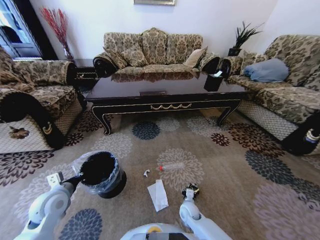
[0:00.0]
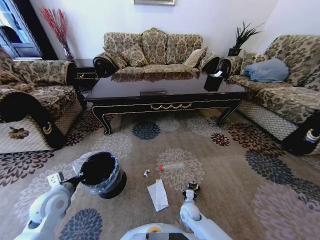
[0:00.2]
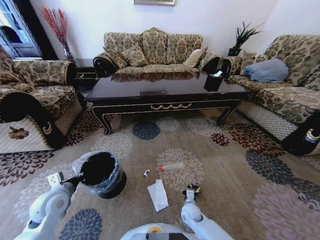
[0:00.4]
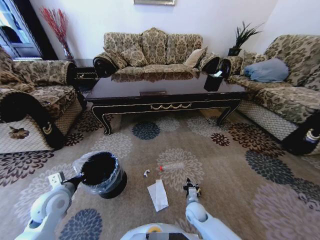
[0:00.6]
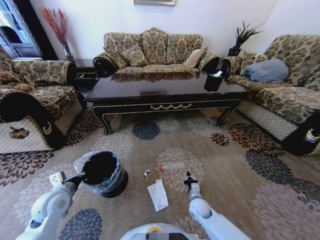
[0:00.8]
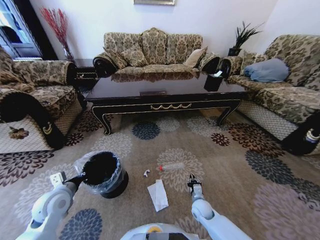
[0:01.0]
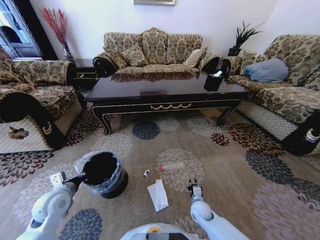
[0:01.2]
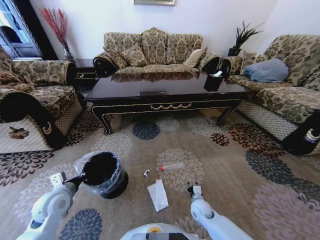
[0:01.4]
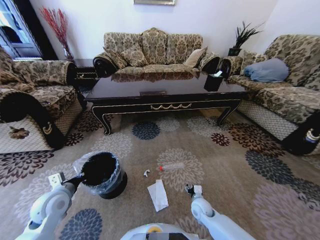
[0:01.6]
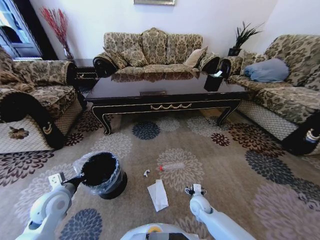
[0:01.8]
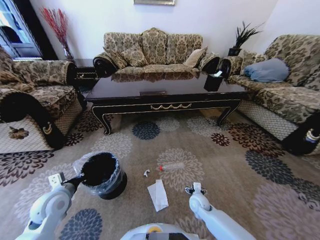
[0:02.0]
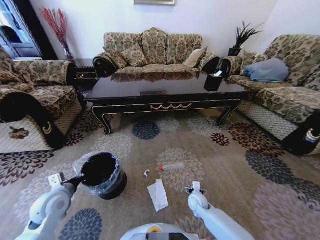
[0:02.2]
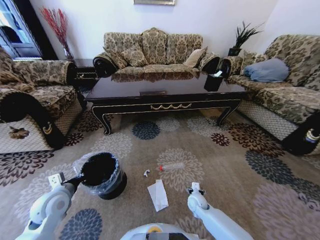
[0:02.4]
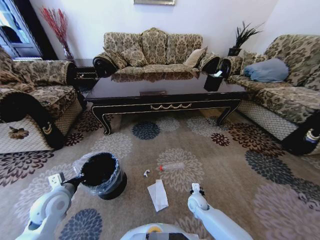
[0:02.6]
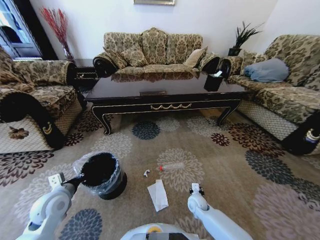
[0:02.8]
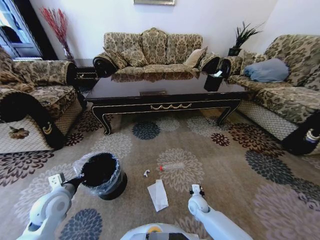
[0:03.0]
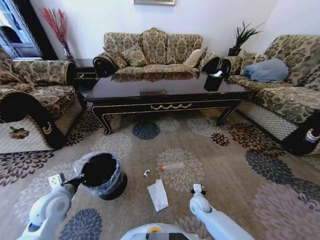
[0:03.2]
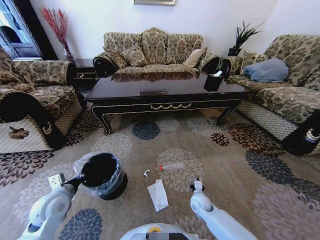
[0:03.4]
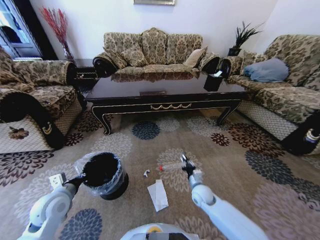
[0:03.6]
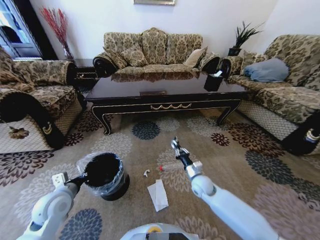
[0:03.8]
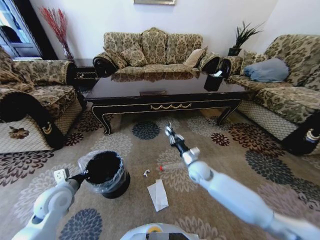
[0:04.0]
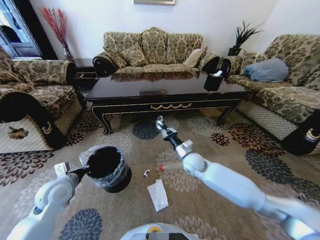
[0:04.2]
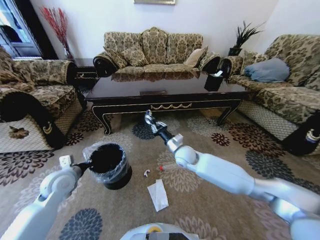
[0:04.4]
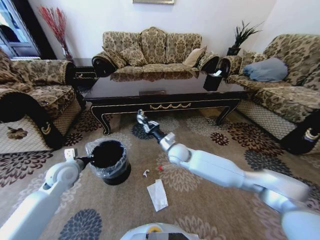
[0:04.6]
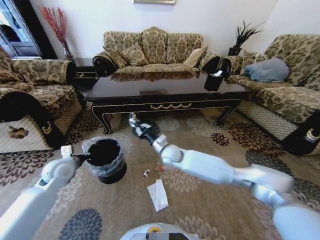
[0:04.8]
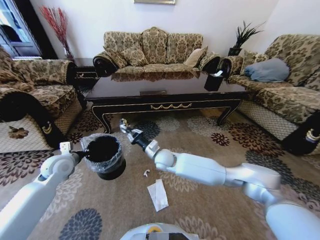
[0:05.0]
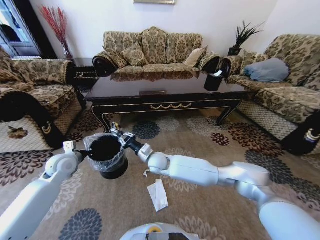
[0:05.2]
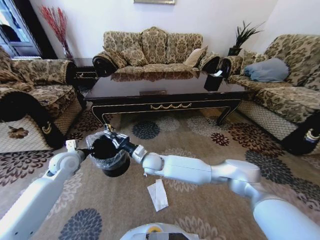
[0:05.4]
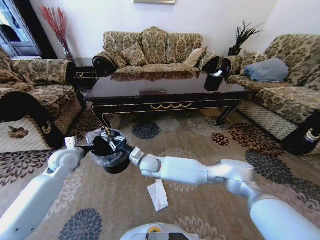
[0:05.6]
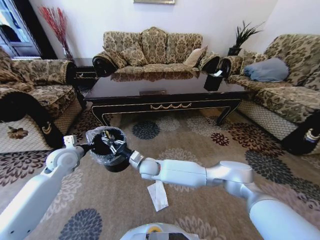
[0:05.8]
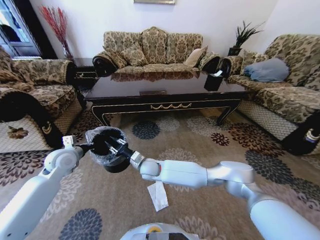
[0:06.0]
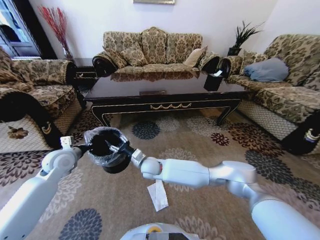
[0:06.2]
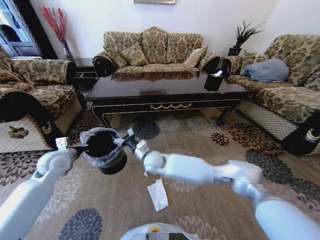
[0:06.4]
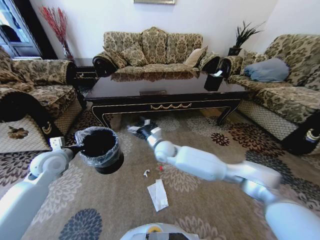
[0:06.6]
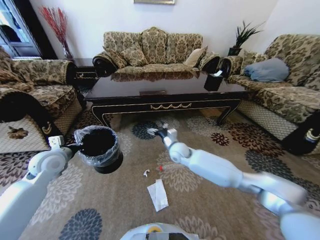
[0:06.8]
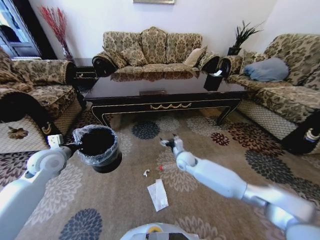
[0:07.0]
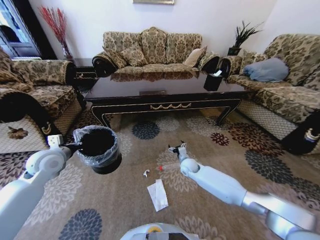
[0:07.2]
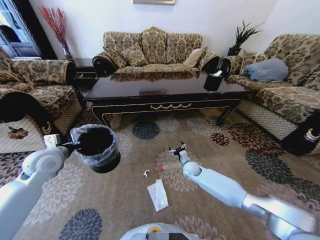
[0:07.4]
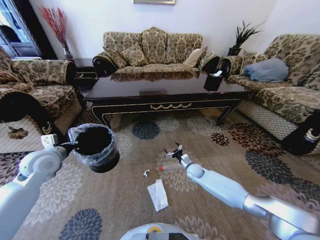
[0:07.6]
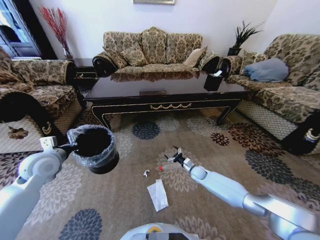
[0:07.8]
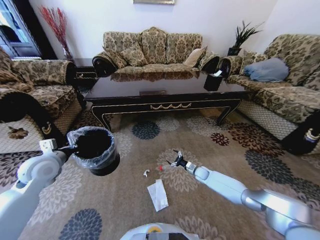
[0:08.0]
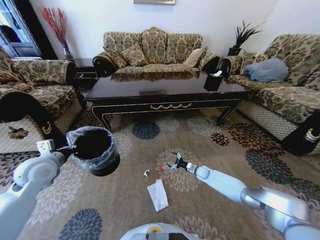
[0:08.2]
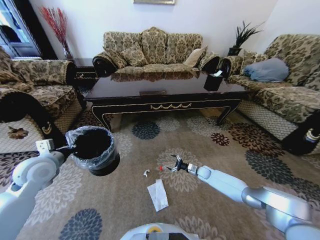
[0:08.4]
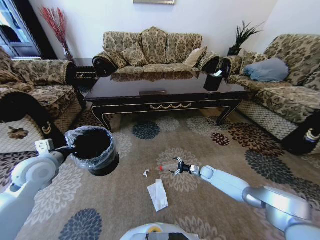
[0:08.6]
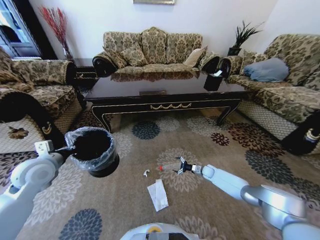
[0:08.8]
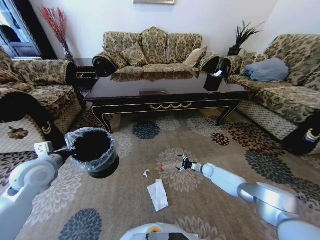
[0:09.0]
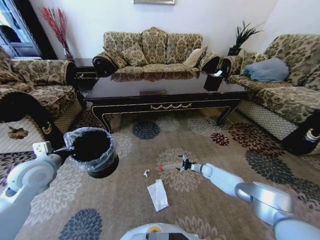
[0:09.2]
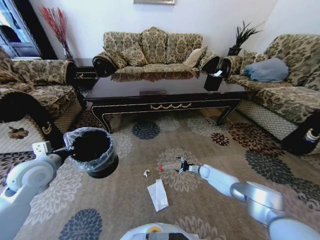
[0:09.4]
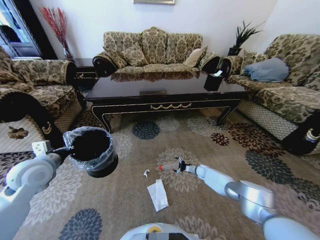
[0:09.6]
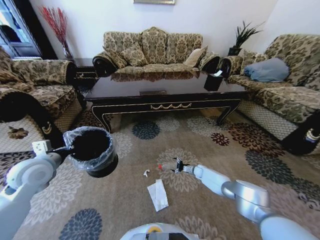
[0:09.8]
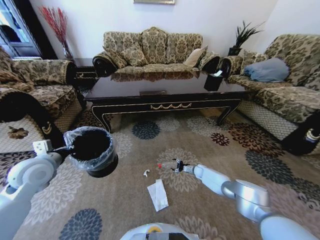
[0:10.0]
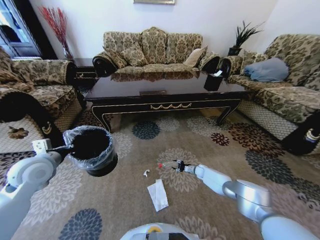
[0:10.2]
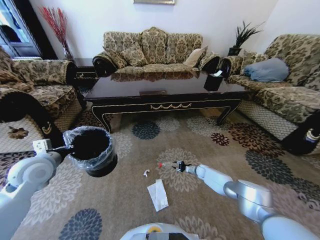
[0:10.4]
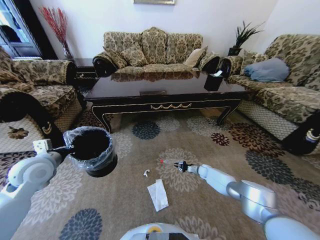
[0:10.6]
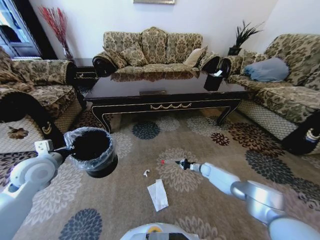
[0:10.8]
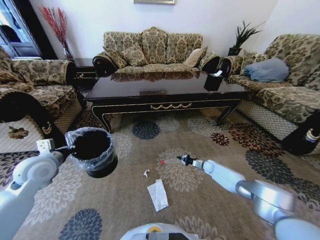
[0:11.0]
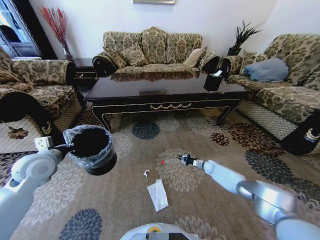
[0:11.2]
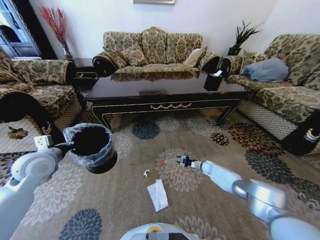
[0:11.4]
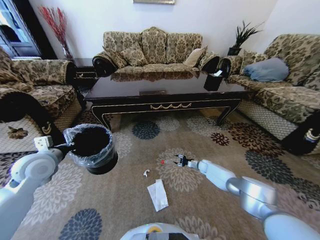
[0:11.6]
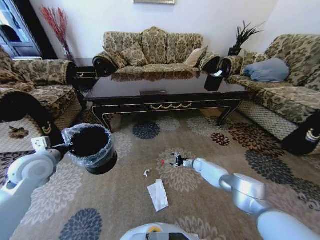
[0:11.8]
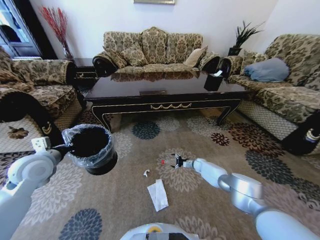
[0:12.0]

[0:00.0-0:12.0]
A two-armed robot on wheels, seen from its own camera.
Task of the whole recording: Move to the front of the table and pick up the trash from the floor, then place it into the trash bin.
0:00.0 to 0:01.6: The right gripper moves to the right, approximately 5 cm, and opens its fingers.
0:01.6 to 0:03.0: The right gripper closes.
0:03.0 to 0:04.4: The right gripper heads upward and forward, covering approximately 30 cm. The left gripper shifts roughly 5 cm forward.
0:04.4 to 0:06.0: The right gripper is displaced to the left by roughly 15 cm. The left gripper moves forward, some 5 cm.
0:06.0 to 0:07.6: The left gripper shifts by approximately 5 cm, while the right gripper travels to the right and downward by some 30 cm, and opens its fingers.
0:07.6 to 0:09.0: The right gripper is displaced to the right and downward by approximately 15 cm.
0:09.0 to 0:10.4: The right gripper closes up.
0:10.4 to 0:12.0: The right gripper opens.

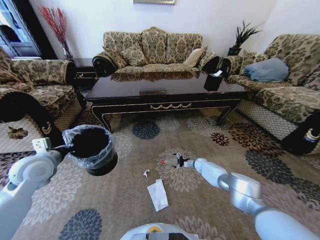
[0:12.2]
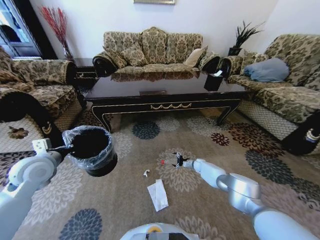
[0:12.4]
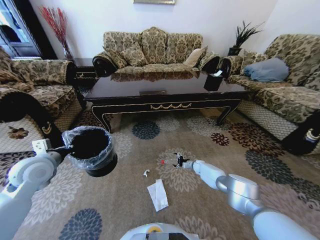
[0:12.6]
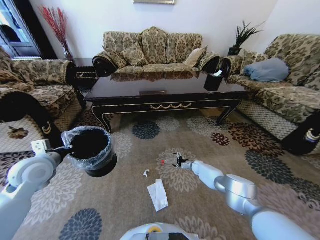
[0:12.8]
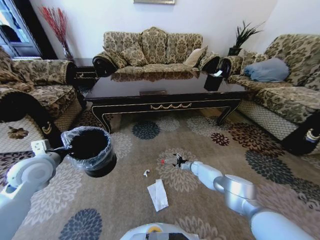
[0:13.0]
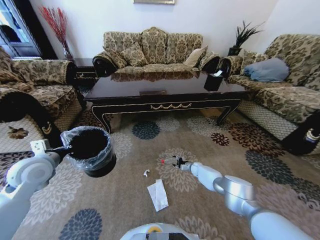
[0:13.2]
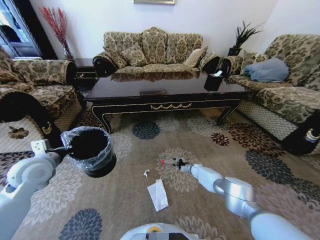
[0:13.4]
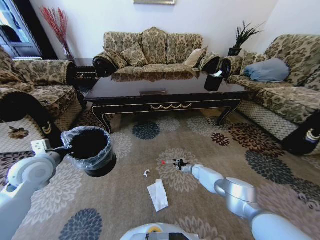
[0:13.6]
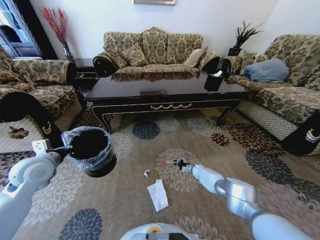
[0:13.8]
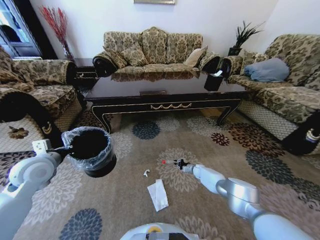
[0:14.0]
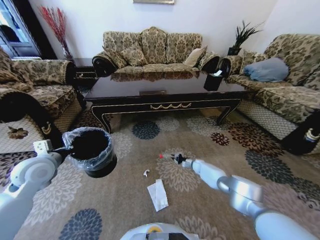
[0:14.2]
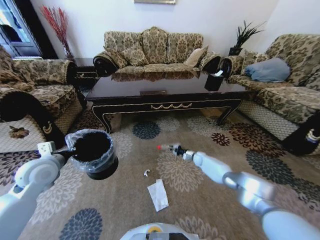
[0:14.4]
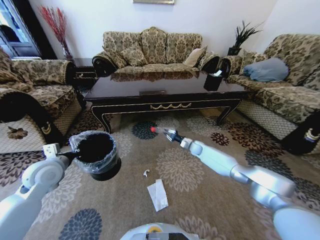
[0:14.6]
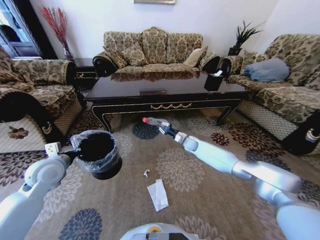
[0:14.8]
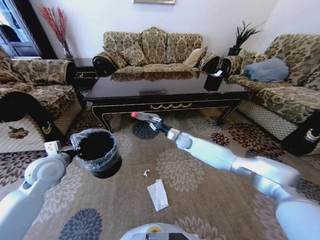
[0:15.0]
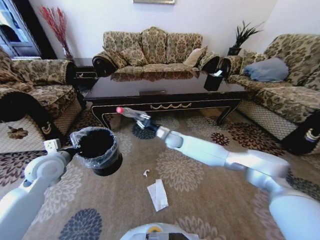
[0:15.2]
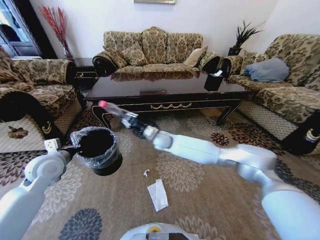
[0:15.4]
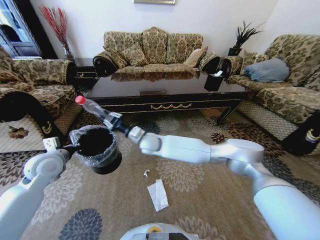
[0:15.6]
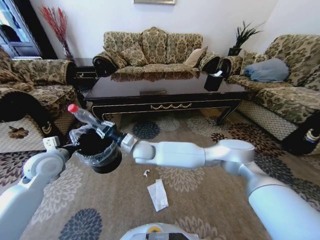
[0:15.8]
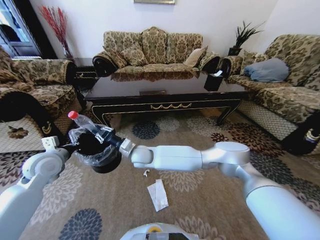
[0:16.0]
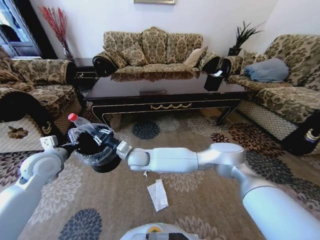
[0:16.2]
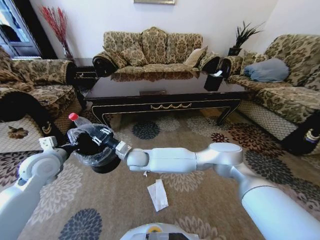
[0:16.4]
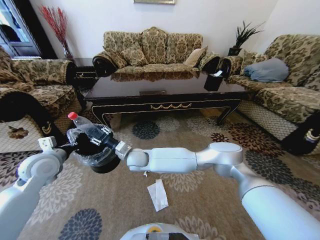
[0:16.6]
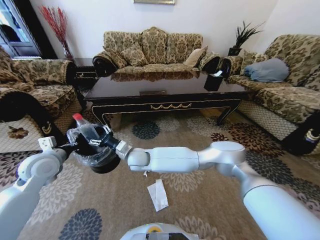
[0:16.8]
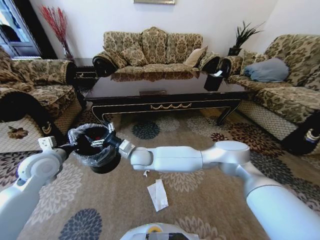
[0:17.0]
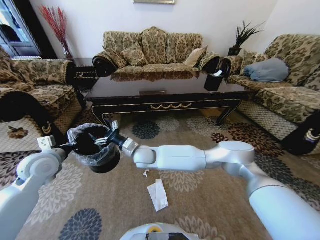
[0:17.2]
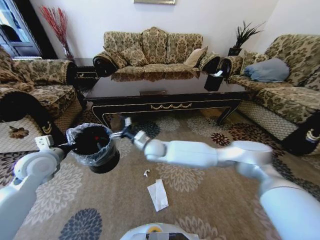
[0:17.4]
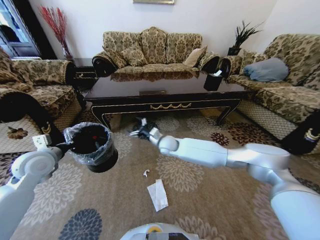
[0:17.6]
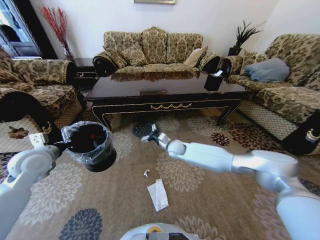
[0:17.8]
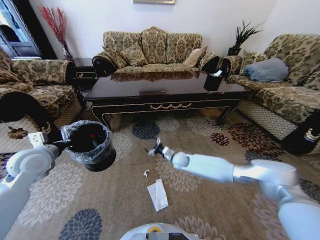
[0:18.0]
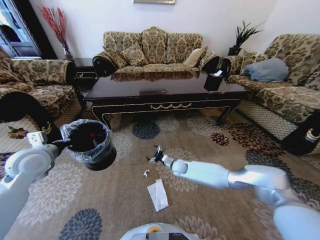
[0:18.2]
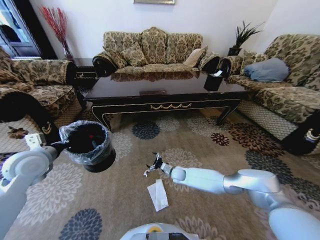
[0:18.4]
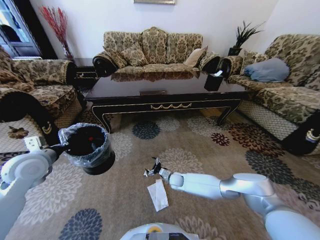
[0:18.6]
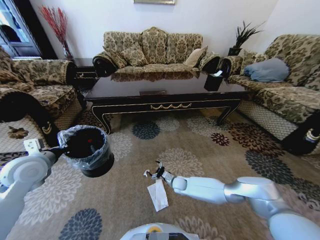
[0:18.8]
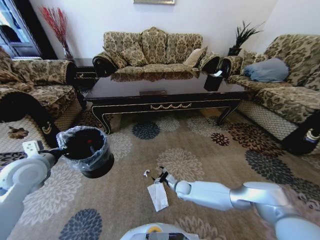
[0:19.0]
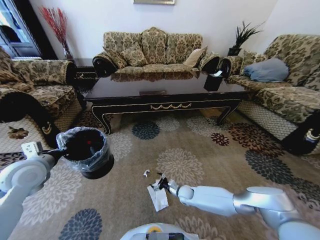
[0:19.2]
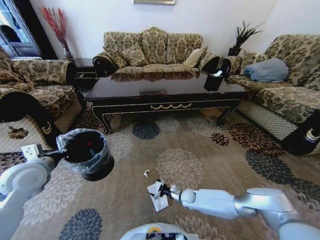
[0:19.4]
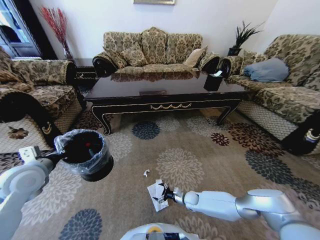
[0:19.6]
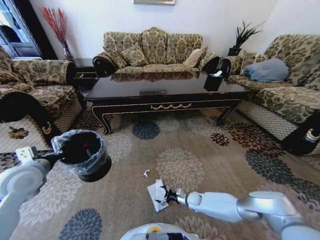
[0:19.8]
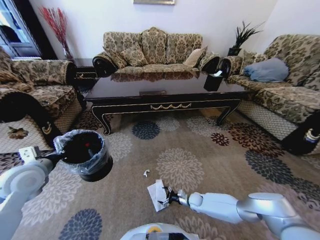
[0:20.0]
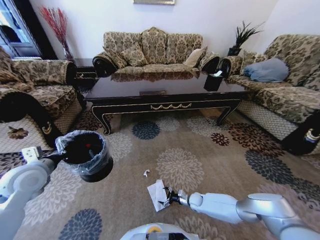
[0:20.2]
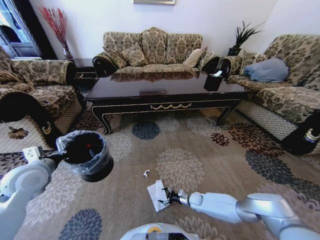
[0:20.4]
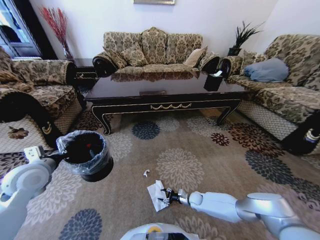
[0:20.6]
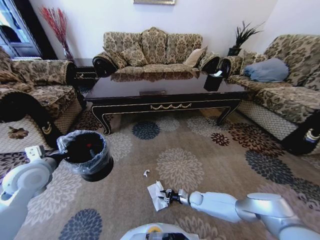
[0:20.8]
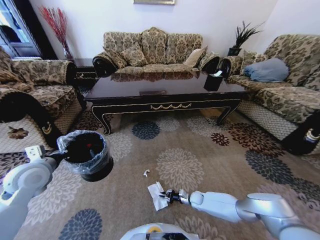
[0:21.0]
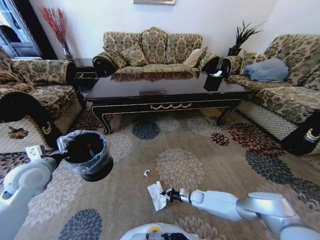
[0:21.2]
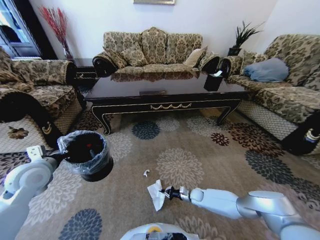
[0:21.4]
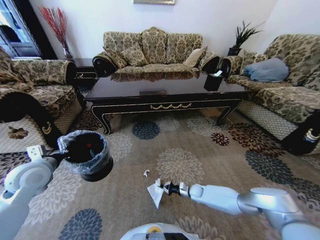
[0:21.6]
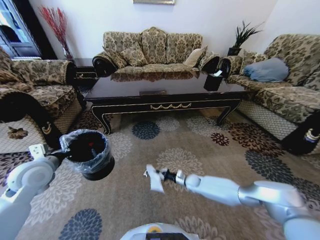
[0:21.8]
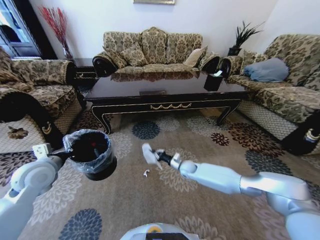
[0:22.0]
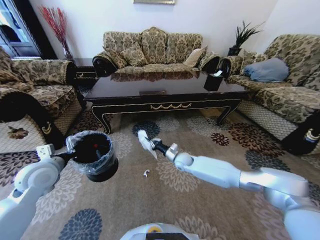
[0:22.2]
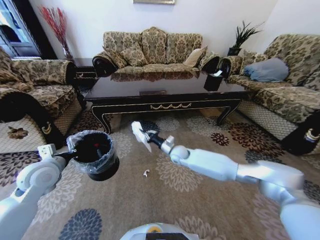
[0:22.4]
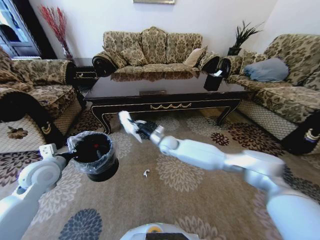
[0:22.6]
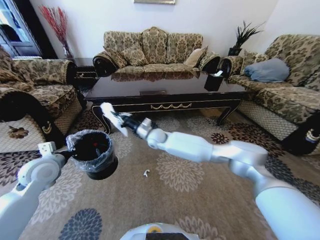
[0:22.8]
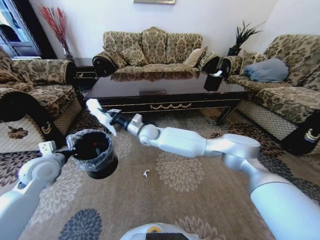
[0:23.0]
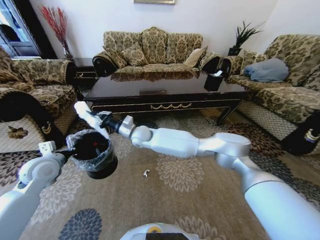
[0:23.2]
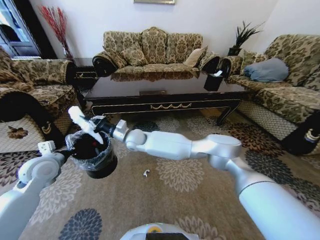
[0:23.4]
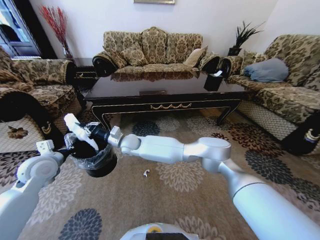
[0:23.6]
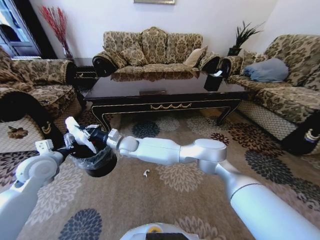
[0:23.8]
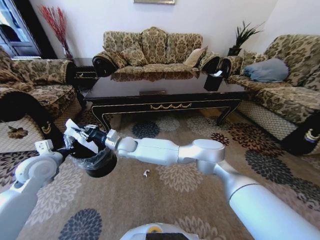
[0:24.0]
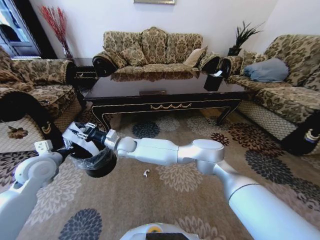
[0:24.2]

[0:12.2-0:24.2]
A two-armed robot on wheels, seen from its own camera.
Task of the whole recording: Move to the front of the table and pick up the trash from the floor, then place it into the trash bin.
0:12.2 to 0:13.8: The right gripper changes place by approximately 5 cm, and closes.
0:13.8 to 0:15.2: The right gripper travels upward and to the left by roughly 35 cm.
0:15.2 to 0:16.6: The right gripper goes roughly 25 cm to the left and backward.
0:16.6 to 0:18.2: The right gripper travels to the right and downward by roughly 30 cm, and opens.
0:18.2 to 0:19.8: The left gripper moves roughly 5 cm. The right gripper is displaced downward, backward and to the right by approximately 25 cm.
0:19.8 to 0:21.2: The right gripper closes up.
0:21.2 to 0:22.6: The right gripper is displaced upward, to the left and forward by roughly 40 cm.
0:22.6 to 0:24.2: The right gripper moves to the left, roughly 20 cm, and opens.
